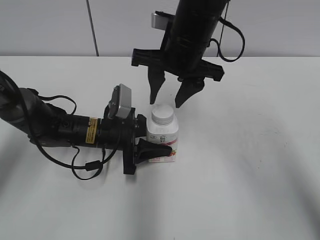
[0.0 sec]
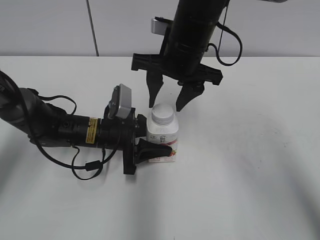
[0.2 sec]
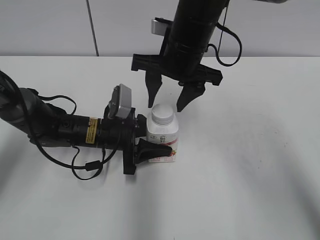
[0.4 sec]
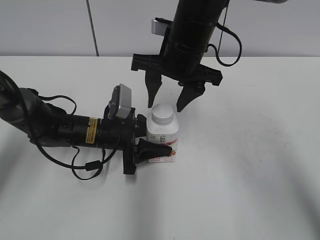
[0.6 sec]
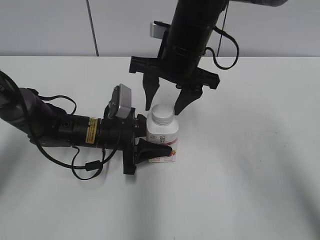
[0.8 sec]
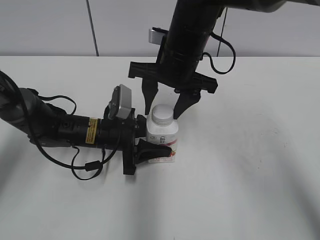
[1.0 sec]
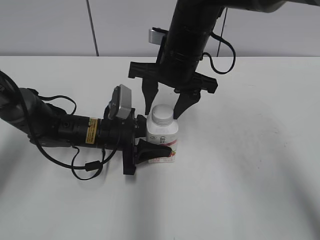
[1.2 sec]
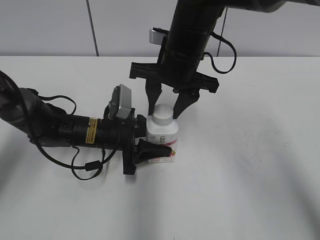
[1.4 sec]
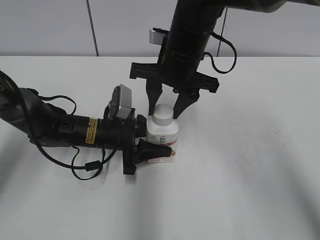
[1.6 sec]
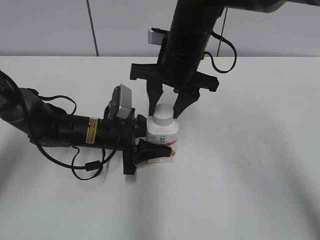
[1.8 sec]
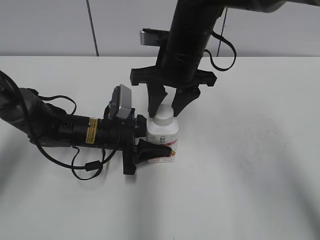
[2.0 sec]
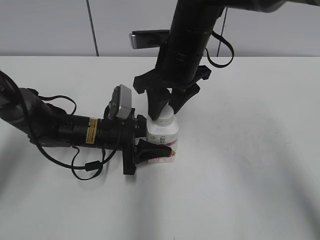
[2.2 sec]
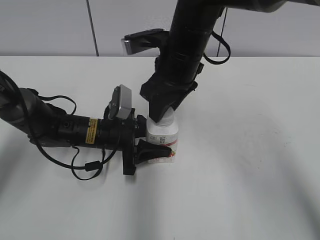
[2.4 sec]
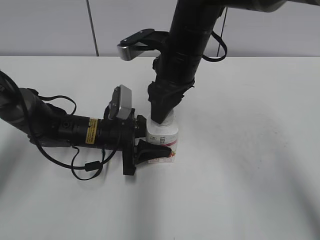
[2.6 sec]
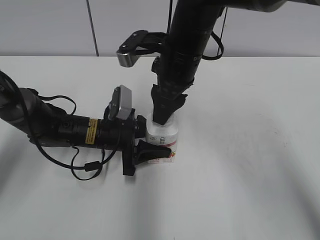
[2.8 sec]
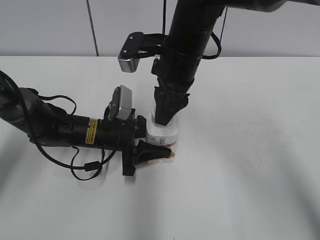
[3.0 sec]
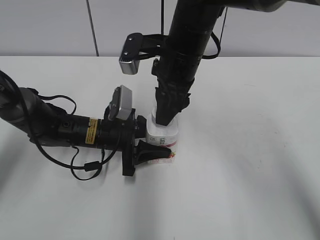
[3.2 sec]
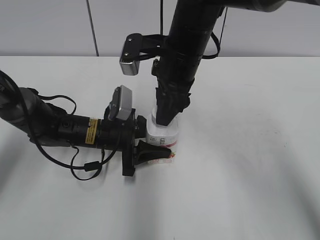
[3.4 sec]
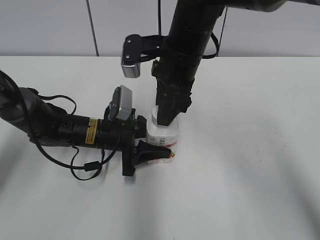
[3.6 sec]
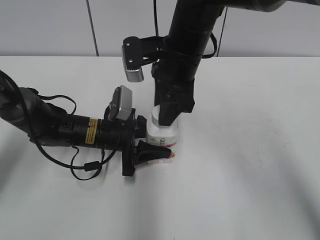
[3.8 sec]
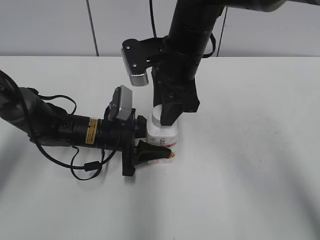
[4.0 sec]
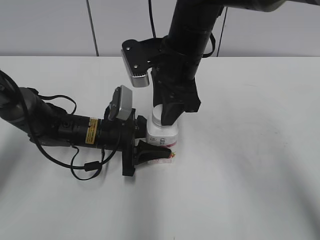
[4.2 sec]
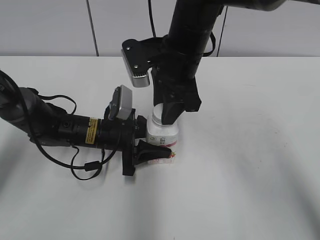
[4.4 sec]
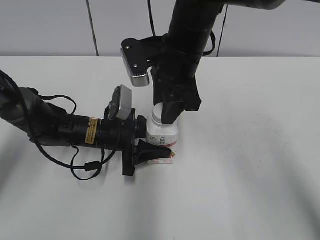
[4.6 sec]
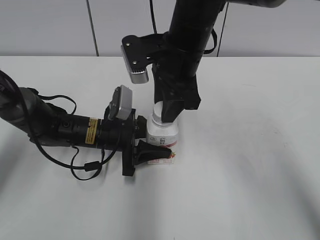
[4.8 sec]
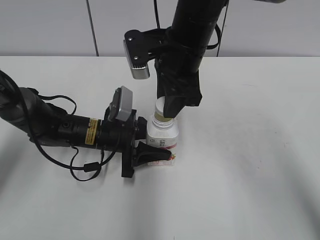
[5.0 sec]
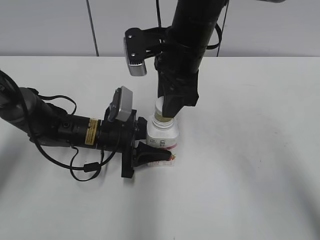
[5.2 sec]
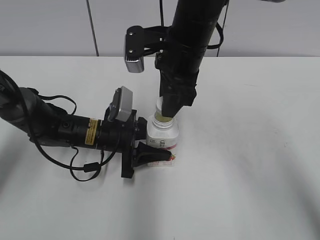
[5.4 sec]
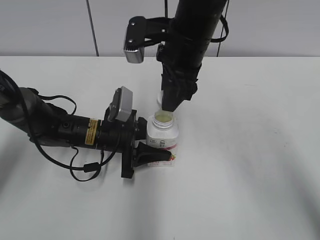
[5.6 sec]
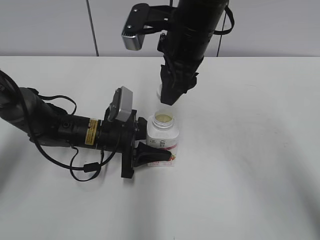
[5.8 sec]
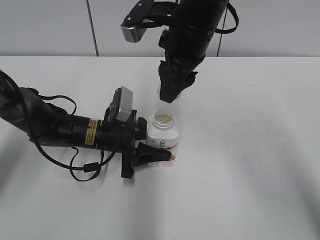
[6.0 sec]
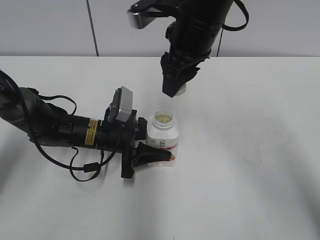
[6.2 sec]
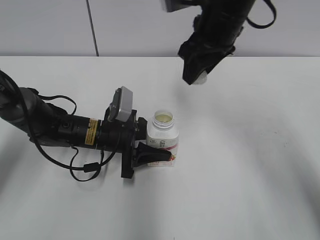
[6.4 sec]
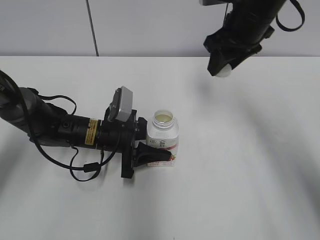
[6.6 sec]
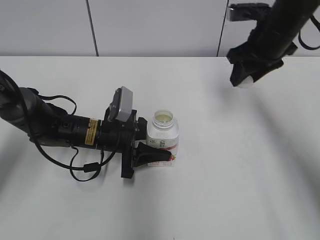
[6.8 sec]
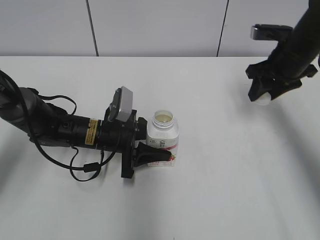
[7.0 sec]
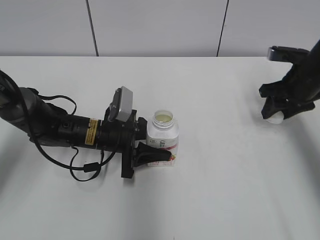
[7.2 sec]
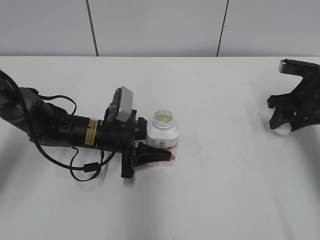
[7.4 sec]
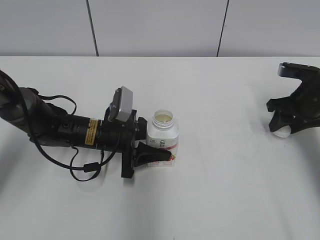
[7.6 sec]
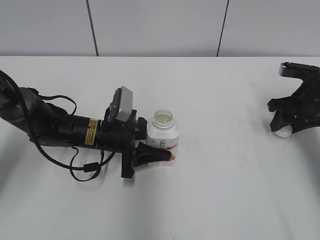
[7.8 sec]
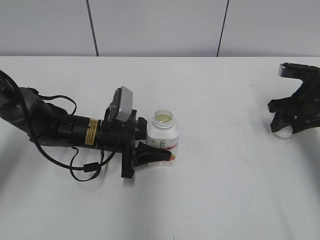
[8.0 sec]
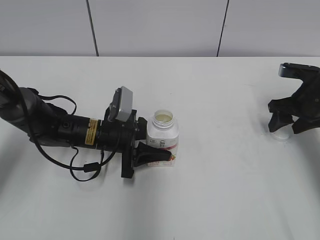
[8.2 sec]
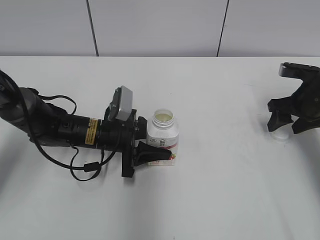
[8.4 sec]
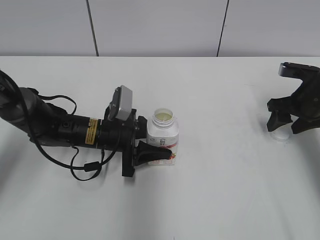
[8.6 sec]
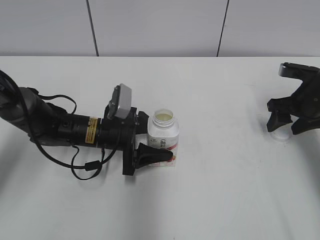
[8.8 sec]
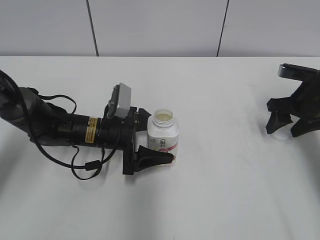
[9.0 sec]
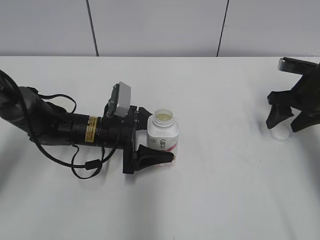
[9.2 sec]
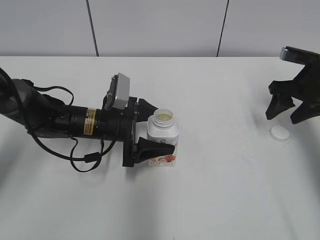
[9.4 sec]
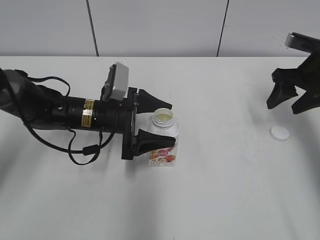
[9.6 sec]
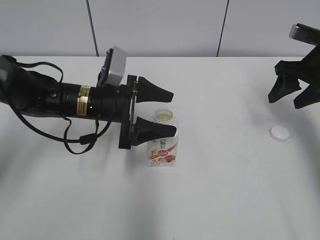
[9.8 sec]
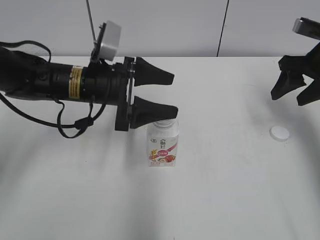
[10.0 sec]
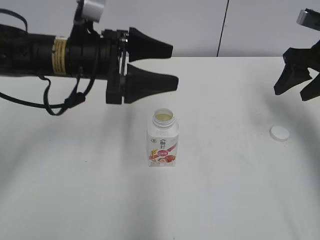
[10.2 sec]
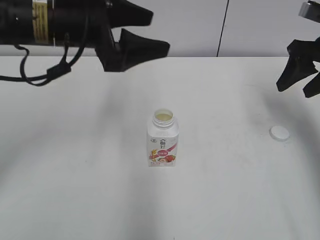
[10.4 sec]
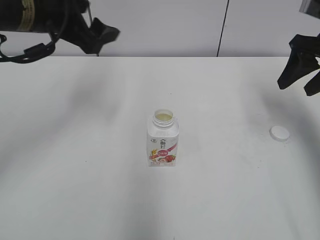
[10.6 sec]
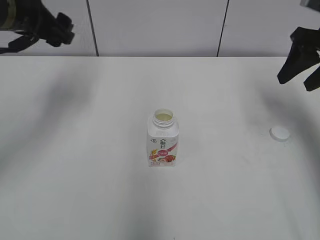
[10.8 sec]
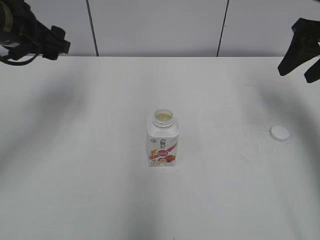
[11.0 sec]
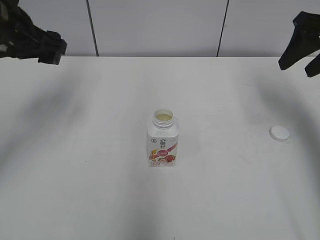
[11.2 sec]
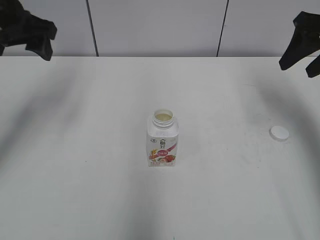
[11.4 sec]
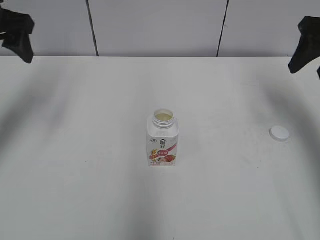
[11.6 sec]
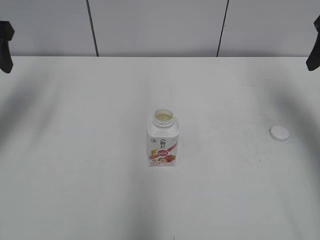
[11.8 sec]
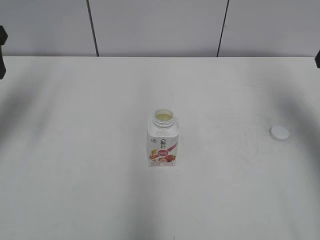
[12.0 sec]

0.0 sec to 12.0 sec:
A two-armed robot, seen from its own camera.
Step, 5.6 sec to 8.0 sec: Place the bottle cap on the right.
Step, 8.2 sec to 9.0 sec: Place the Yili Changqing with the left hand.
0.0 sec to 1.6 sec: The right gripper opens, then closes again.
6.0 sec to 7.6 sec: The right gripper shifts about 30 cm to the right and downward.
7.6 sec to 9.0 sec: The right gripper opens; the left gripper opens up.
9.0 sec to 10.4 sec: The right gripper heads upward, covering approximately 10 cm, while the left gripper goes approximately 20 cm upward.
10.4 sec to 12.0 sec: The left gripper heads to the left, covering some 20 cm; the right gripper goes roughly 5 cm upward.

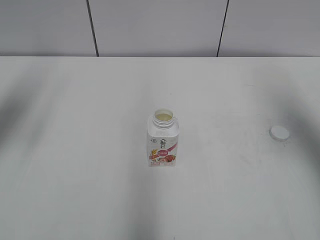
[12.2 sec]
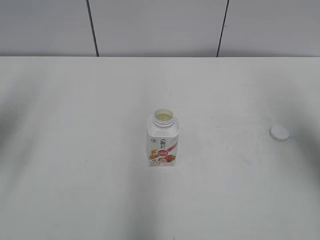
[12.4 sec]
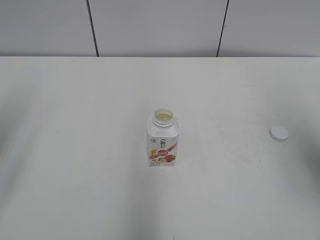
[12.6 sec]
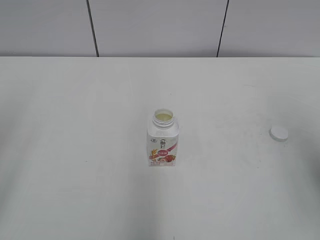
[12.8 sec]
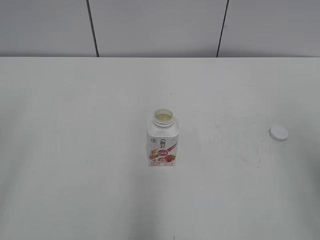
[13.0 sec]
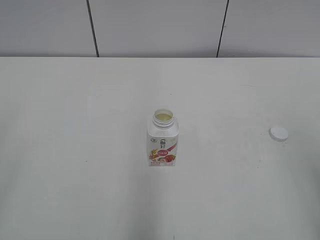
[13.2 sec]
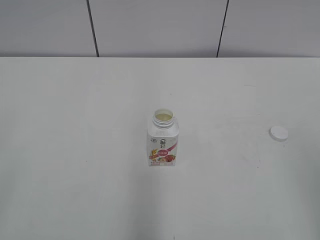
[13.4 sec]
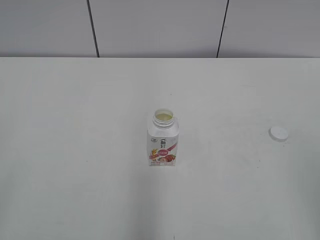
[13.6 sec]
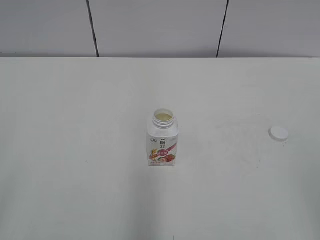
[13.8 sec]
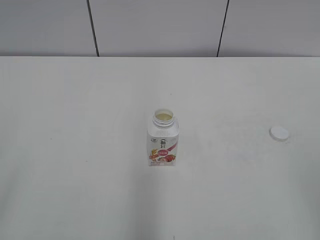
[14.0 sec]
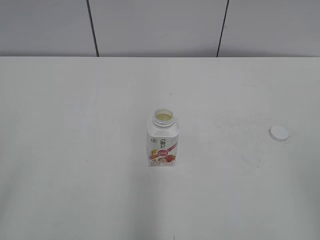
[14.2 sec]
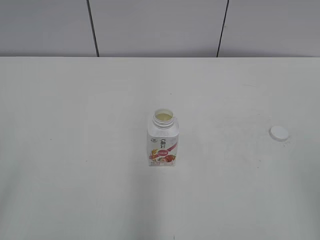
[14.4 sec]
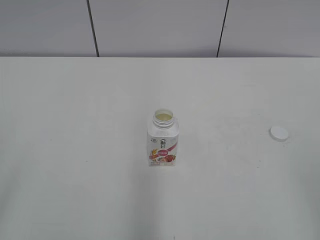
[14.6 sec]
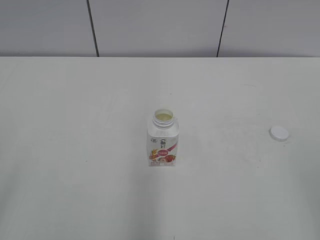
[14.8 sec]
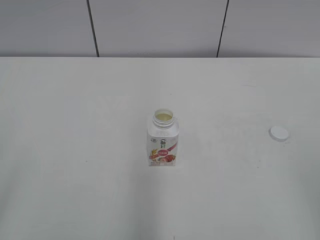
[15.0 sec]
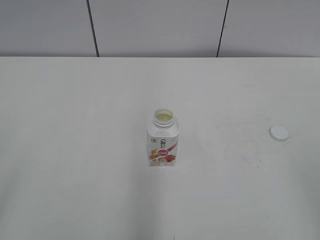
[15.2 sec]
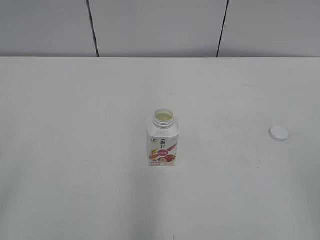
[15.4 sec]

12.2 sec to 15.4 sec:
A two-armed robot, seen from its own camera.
12.2 sec to 13.8 sec: Both grippers move backward, approximately 30 cm.
